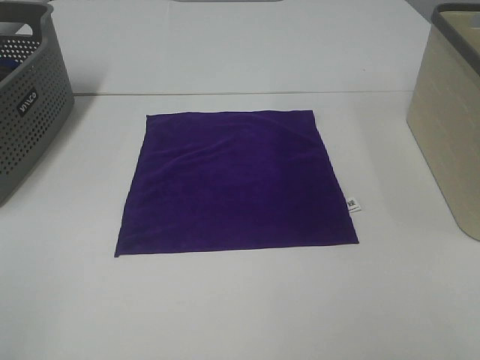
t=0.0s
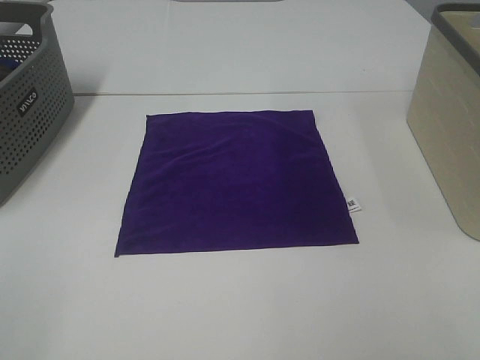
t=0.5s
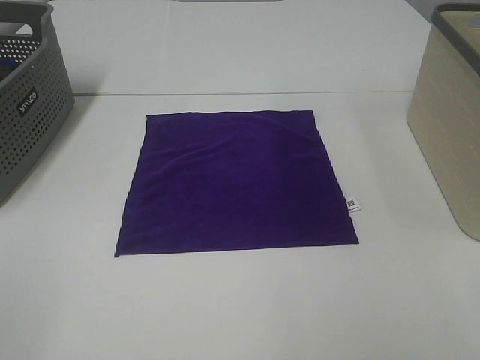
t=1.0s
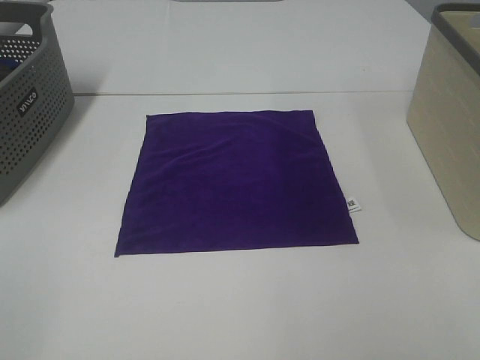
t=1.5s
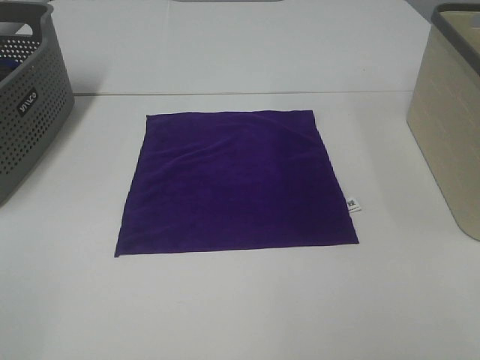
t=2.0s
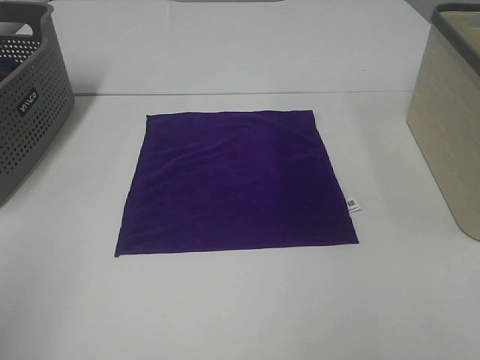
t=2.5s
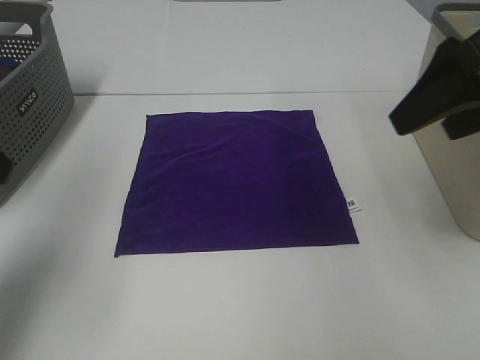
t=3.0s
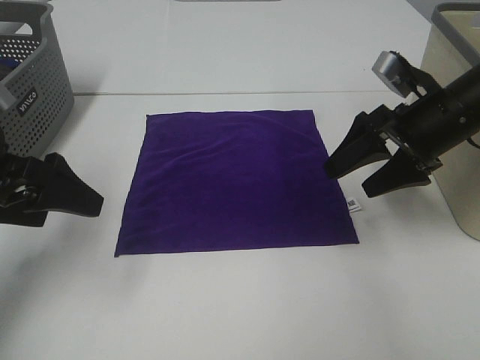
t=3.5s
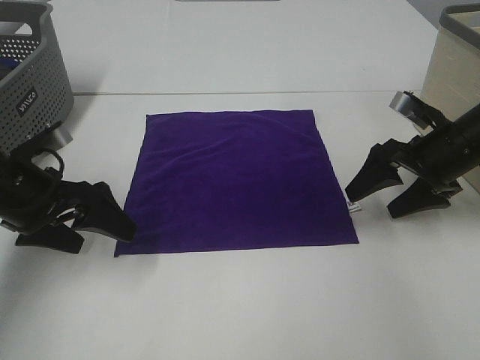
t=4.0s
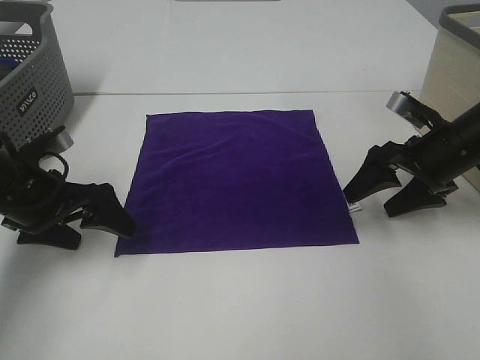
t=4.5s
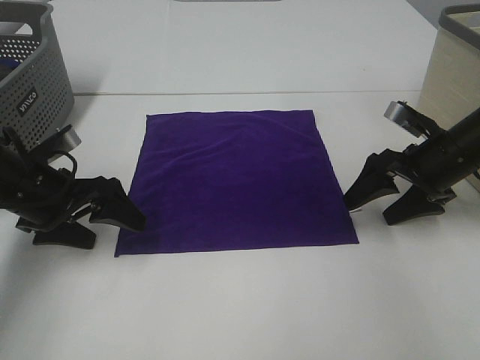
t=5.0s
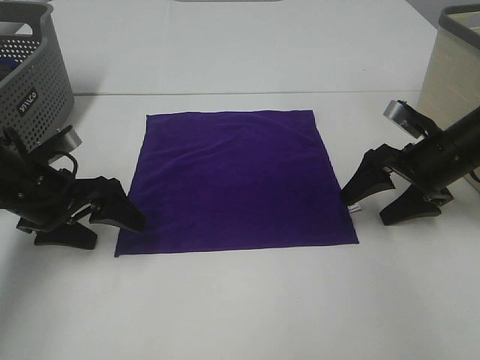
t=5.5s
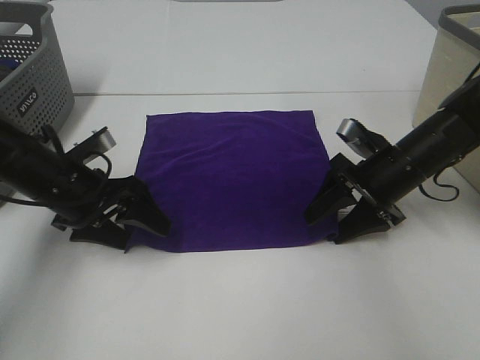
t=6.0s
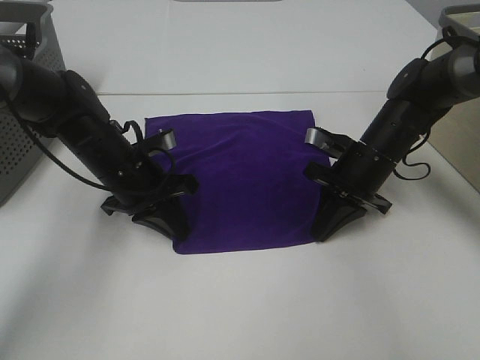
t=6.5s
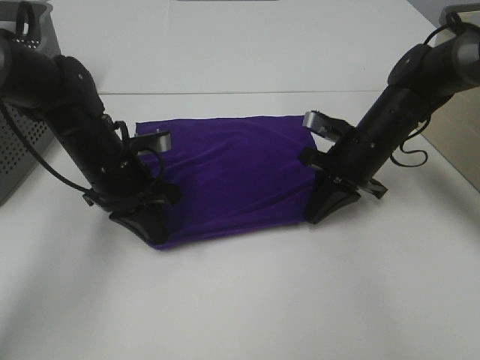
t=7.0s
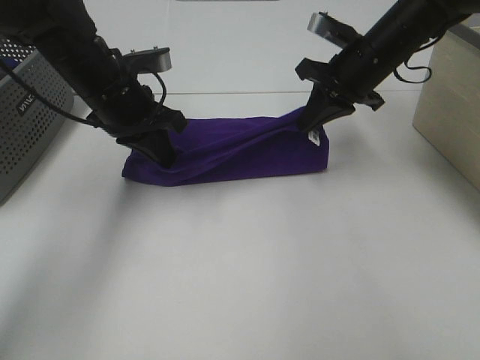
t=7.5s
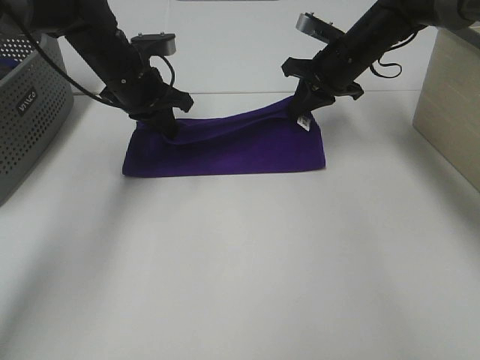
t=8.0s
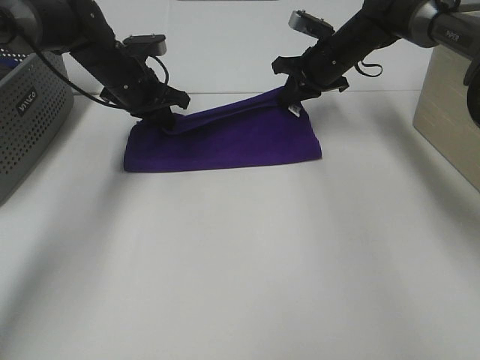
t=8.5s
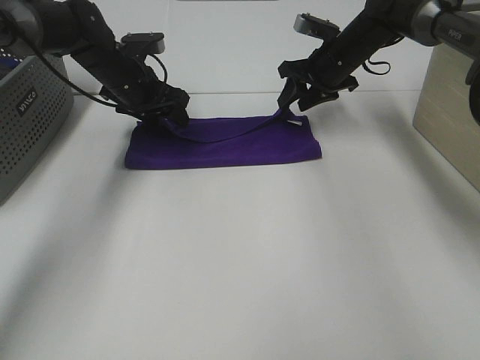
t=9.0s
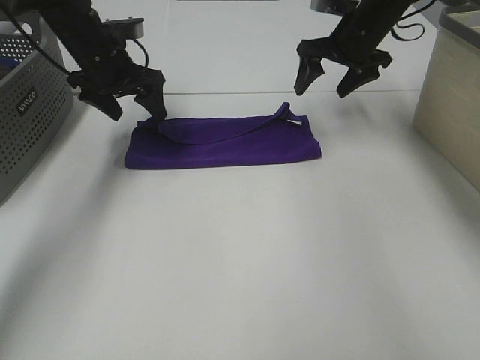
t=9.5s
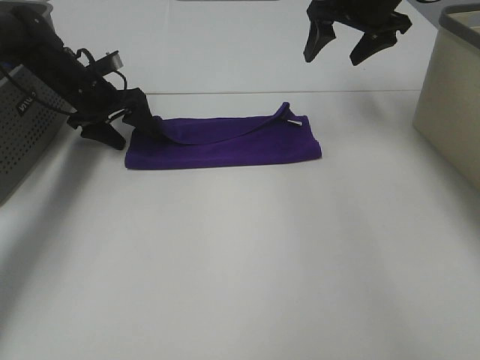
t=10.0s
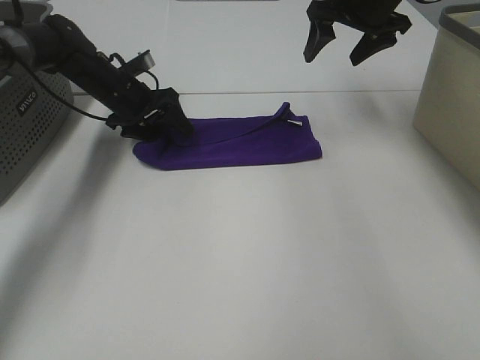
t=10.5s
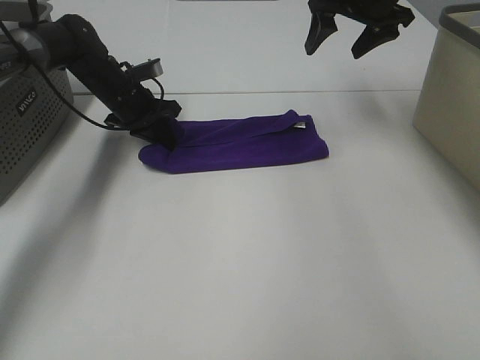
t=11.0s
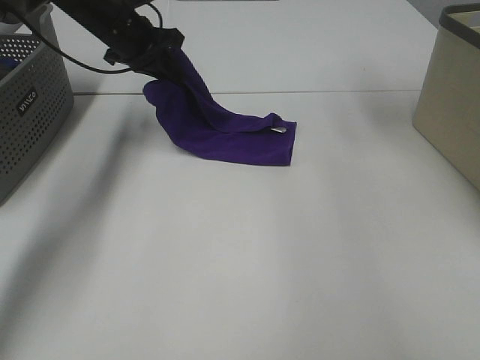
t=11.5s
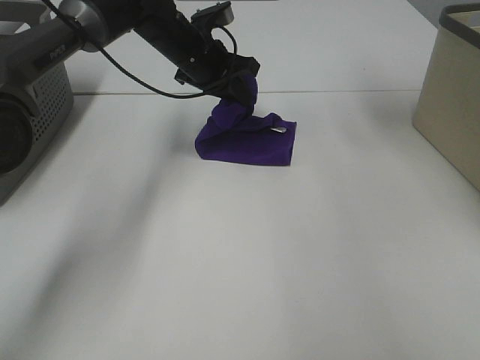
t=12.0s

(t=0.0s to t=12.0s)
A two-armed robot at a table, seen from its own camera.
Task of the whole recording: Fold towels.
Step, t=0.0s - t=6.5s: Left hand: grab the bottom left corner of purple towel.
Step, t=0.0s - t=6.5s: Right hand: grab the bottom right corner of purple towel.
Step, t=7.0s - t=8.5s: Left hand: fold the purple towel up.
Step, t=7.0s - t=8.5s: Right hand: fold the purple towel up.
t=2.0s - t=4.0s: The two grippers go about 35 cm forward and downward.
t=4.0s - t=6.0s: The right gripper shifts roughly 10 cm to the left and downward, while the left gripper changes place by about 5 cm.
t=6.0s - t=8.0s: Both grippers travel together forward and upward, approximately 15 cm. The right gripper closes up. Meanwhile the left gripper closes.
t=8.0s - t=10.0s: The right gripper is displaced upward by approximately 10 cm, and opens; the left gripper is displaced to the left and downward by about 10 cm, and opens up.
t=10.0s - t=12.0s: The left gripper shifts about 20 cm to the right, and closes. Meanwhile the right gripper heads upward, covering some 15 cm.

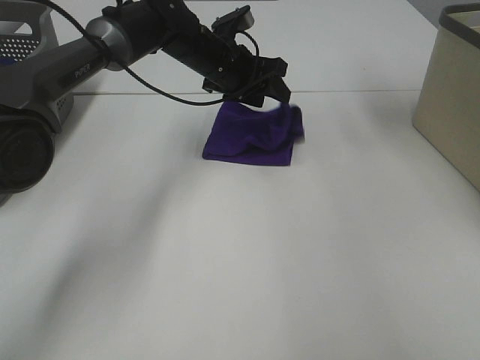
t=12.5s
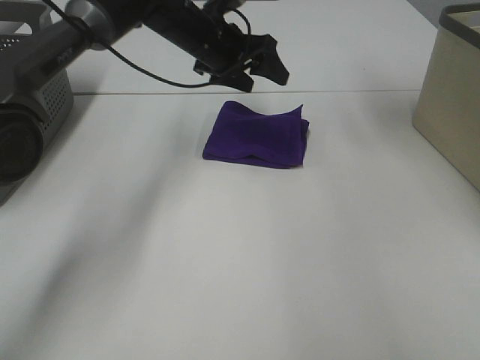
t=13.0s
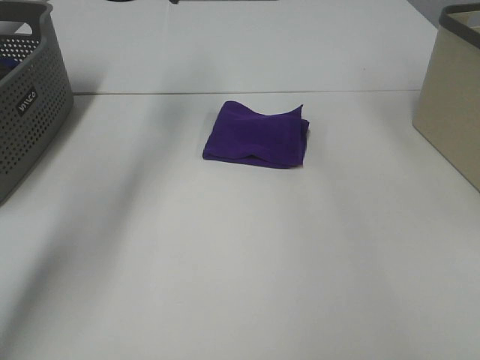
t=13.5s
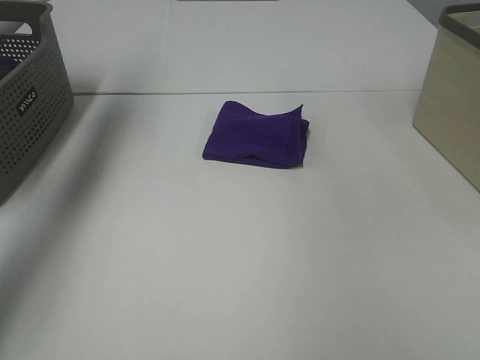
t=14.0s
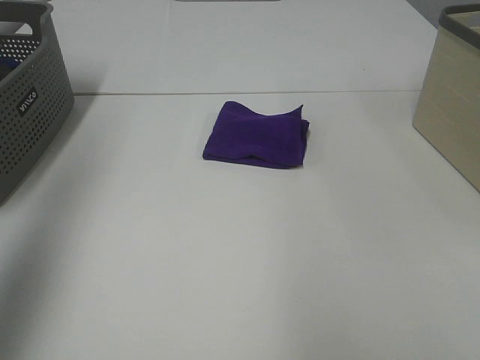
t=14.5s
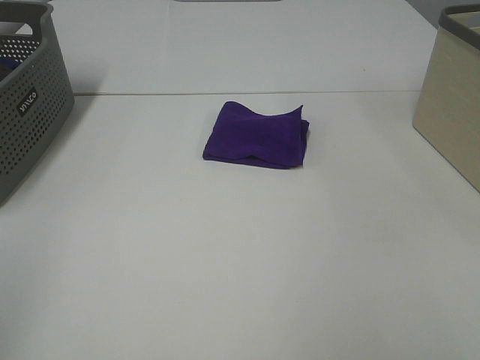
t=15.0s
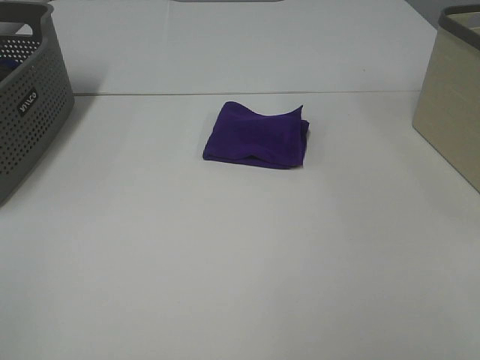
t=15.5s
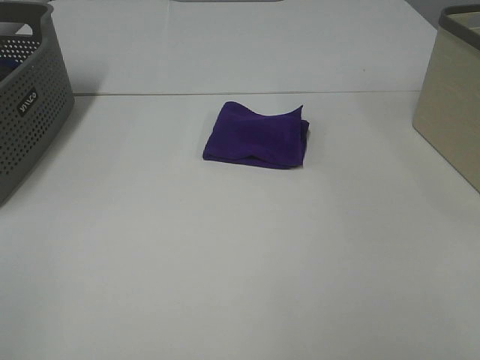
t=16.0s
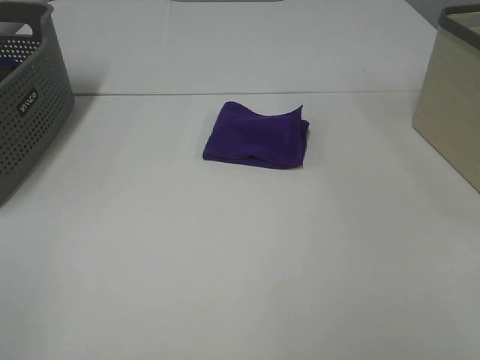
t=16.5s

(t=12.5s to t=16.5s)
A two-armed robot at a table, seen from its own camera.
Task of the whole recording: Fold towels.
t=12.5s - t=14.5s: The left gripper moves backward, to the left and upward, approximately 50 cm; the right gripper moves backward, about 30 cm.
t=14.5s - t=16.5s: The left gripper travels backward and downward by approximately 25 cm.

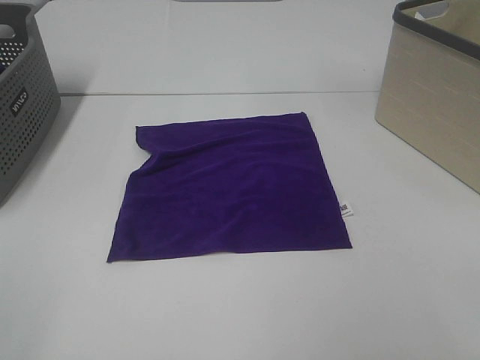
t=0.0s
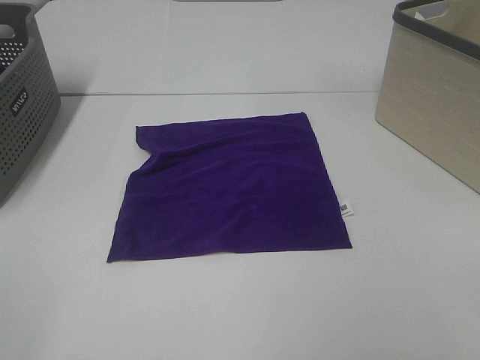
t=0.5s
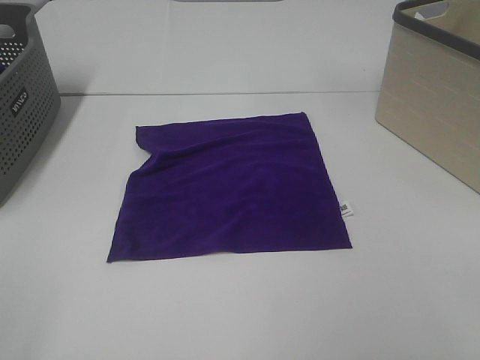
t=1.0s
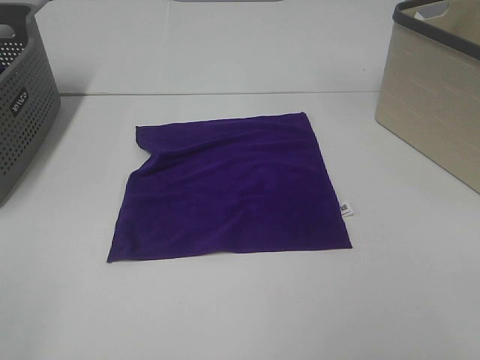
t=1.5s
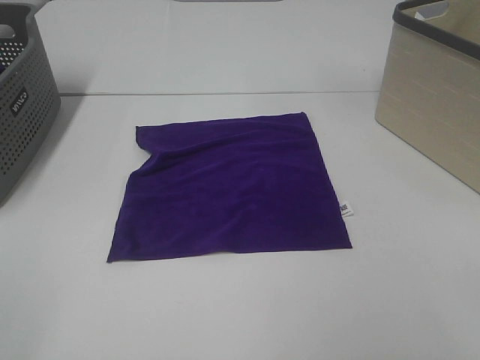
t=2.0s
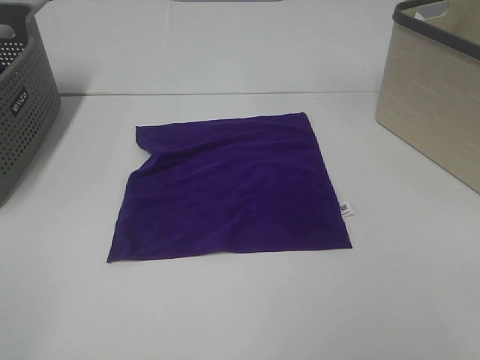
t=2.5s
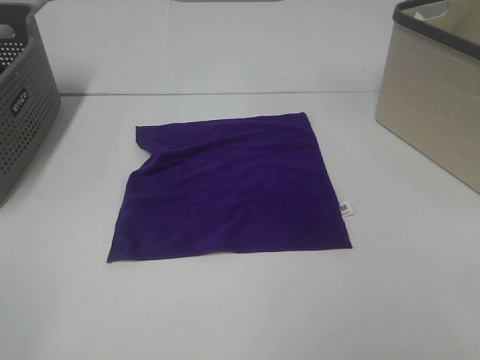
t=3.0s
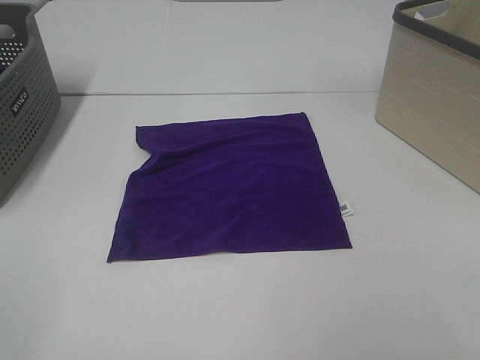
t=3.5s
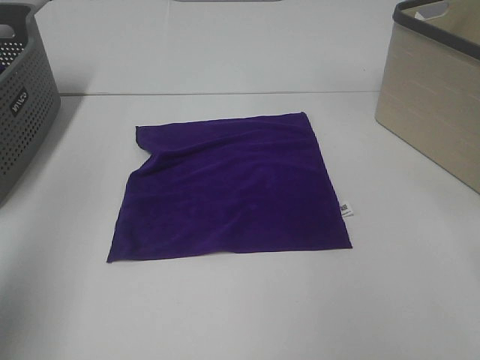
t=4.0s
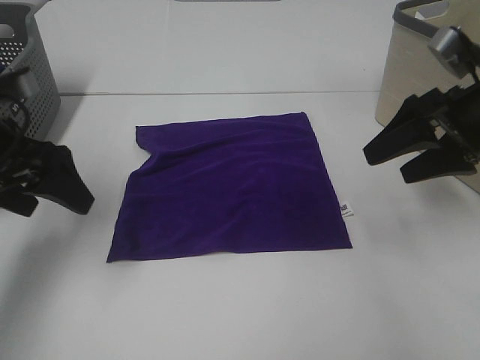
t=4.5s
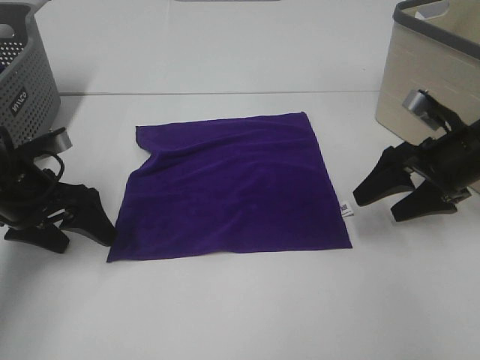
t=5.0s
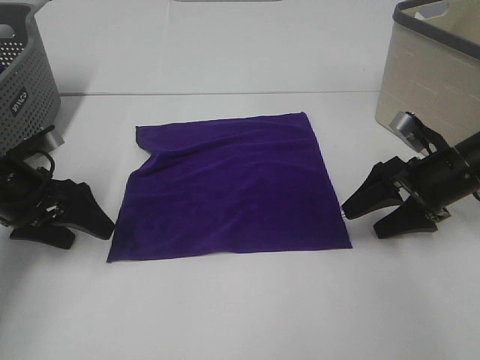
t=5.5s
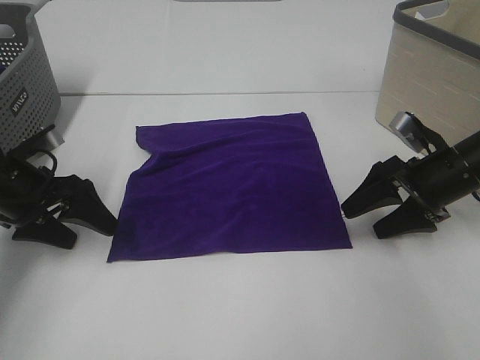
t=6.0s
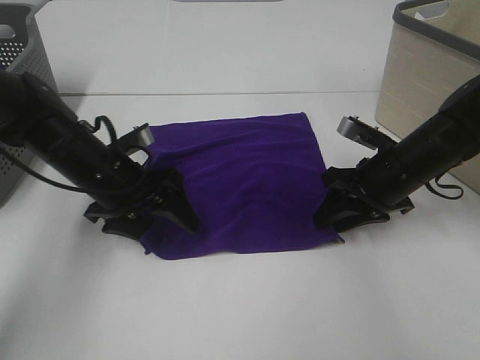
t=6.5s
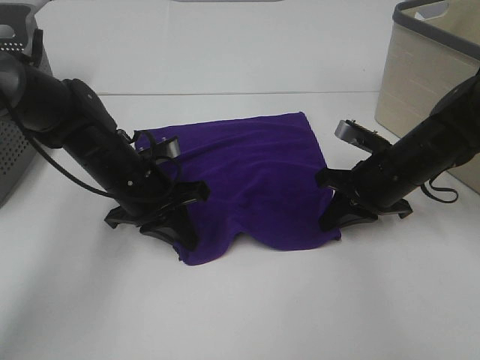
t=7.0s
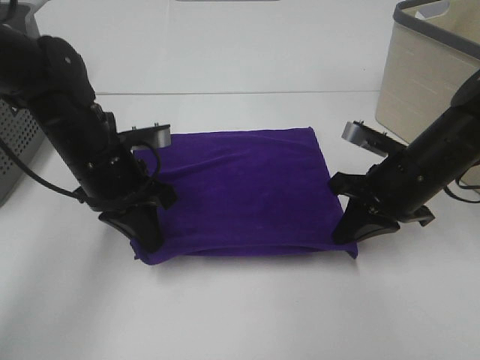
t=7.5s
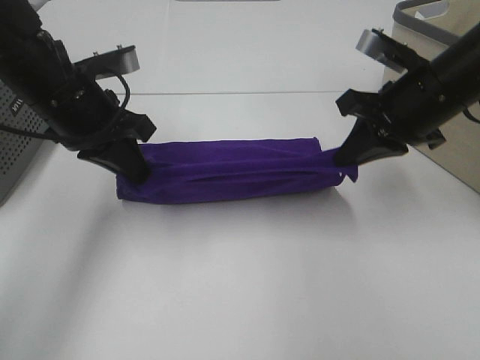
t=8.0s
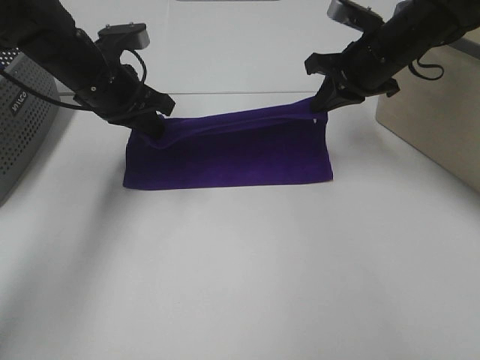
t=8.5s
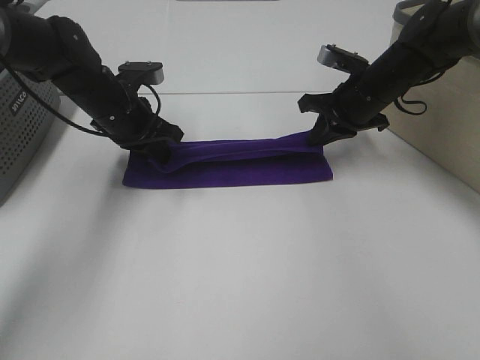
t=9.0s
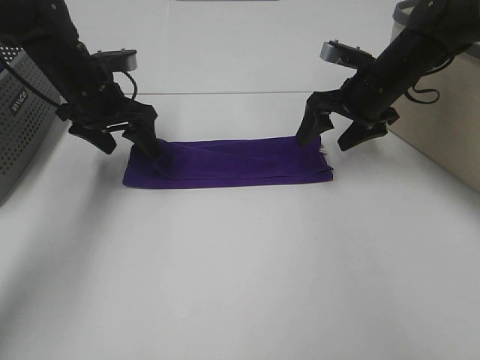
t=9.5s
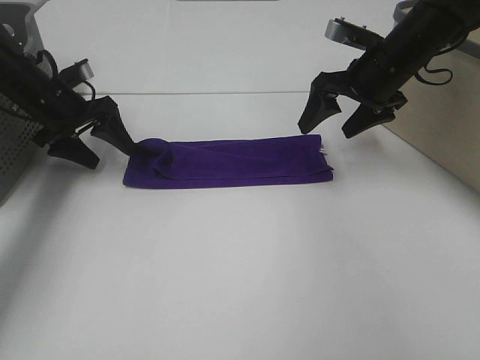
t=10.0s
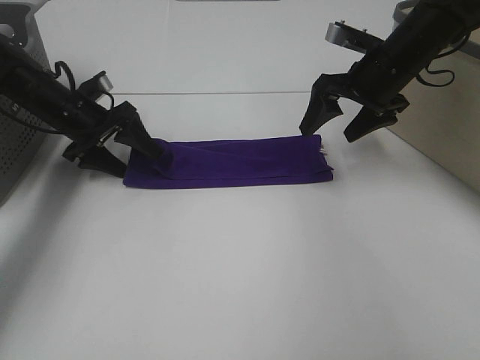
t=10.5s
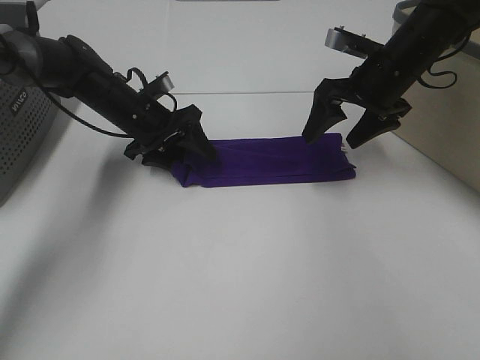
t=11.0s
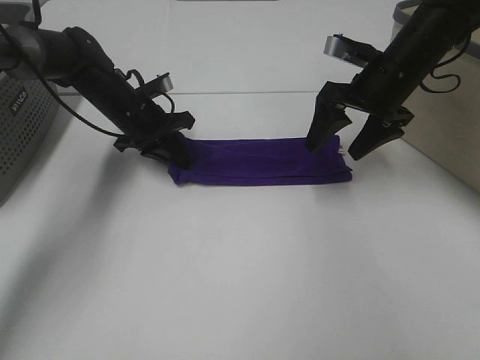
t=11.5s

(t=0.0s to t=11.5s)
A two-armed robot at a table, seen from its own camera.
Task of the whole recording: Fold towels.
Step, t=0.0s - t=7.0s: Left hand: grab the bottom left corner of purple towel.
Step, t=0.0s - t=7.0s: Right hand: grab the bottom right corner of purple towel.
Step, t=7.5s - t=9.0s: Left hand: fold the purple towel up.
Step, t=7.5s - t=9.0s: Right hand: fold the purple towel up.
t=0.0s - t=2.0s: Both grippers stay about where they are.
t=2.0s - t=4.0s: The left gripper shifts some 15 cm forward and upward.
t=4.0s - t=6.0s: The two grippers go some 30 cm downward and forward.
t=6.0s - t=7.5s: The right gripper goes some 5 cm to the left, and closes up; the left gripper goes some 10 cm to the right, and closes its fingers.
t=7.5s - t=9.5s: The right gripper moves forward, approximately 15 cm, and opens, while the left gripper moves forward and to the left, some 15 cm, and opens its fingers.
t=9.5s - t=11.5s: The left gripper goes approximately 5 cm downward, travels to the left and back again, approximately 5 cm each way, and closes.
